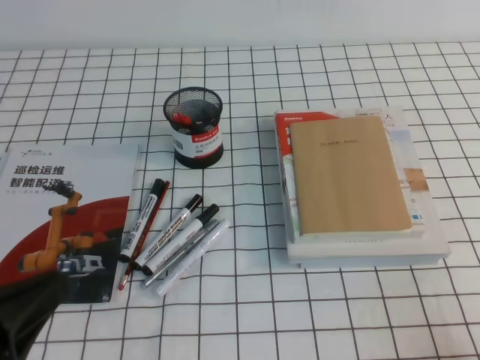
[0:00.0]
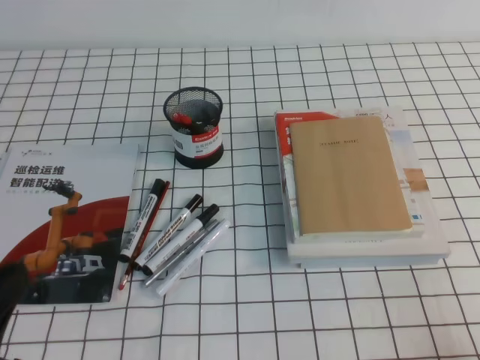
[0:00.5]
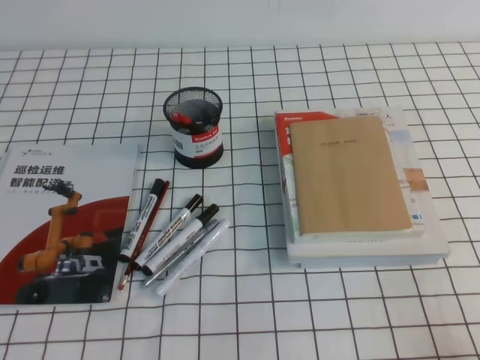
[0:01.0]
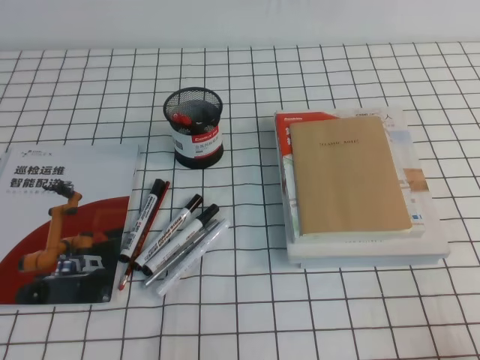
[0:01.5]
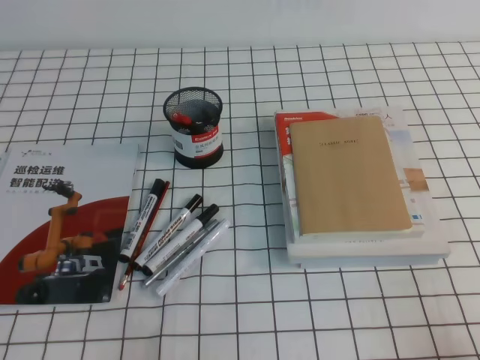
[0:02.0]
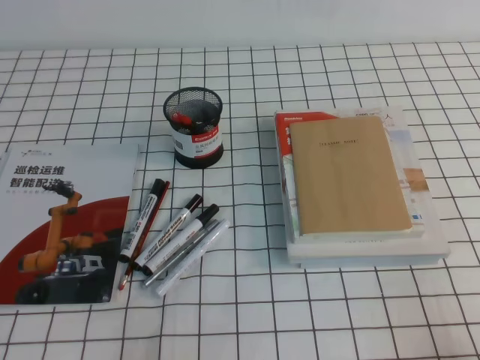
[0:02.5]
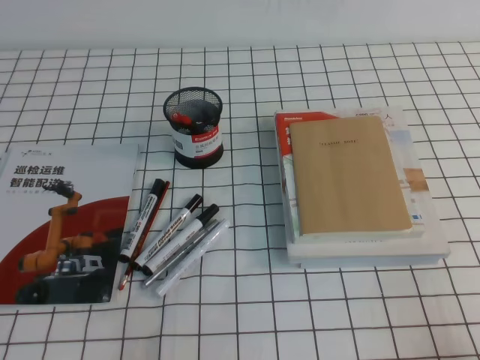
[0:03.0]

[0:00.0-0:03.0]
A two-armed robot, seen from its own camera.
Step, 0:00.0 to 0:03.0: Pick up the pen from the pen holder.
0:00.0 to 0:01.5: The left gripper shifts about 10 cm downward.
